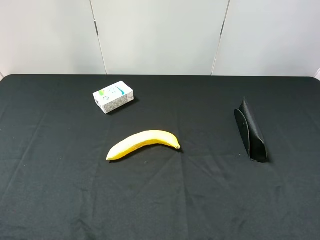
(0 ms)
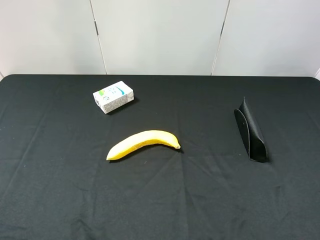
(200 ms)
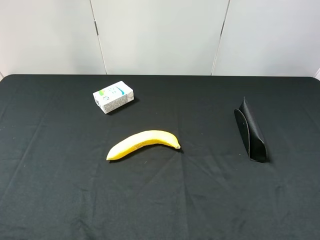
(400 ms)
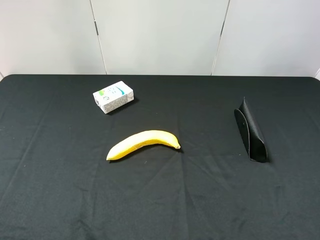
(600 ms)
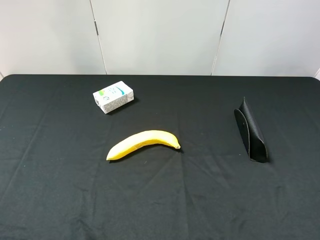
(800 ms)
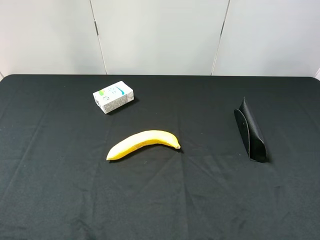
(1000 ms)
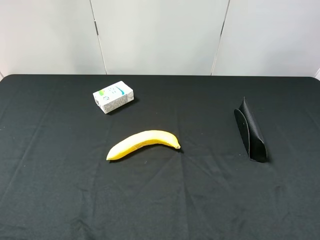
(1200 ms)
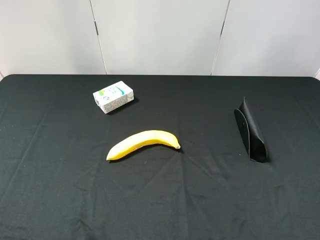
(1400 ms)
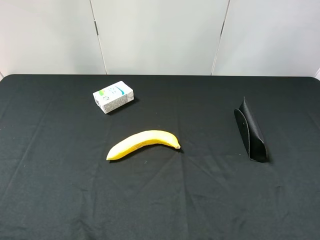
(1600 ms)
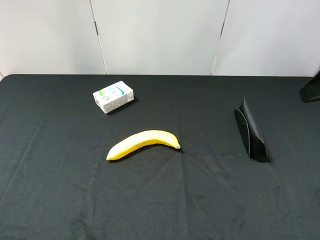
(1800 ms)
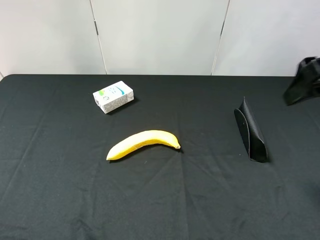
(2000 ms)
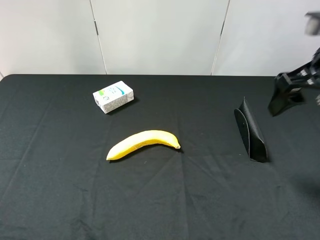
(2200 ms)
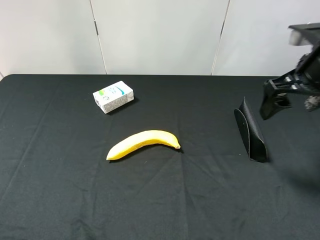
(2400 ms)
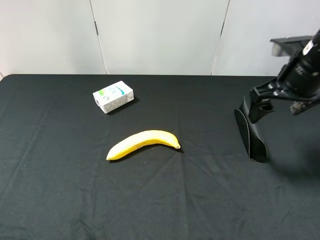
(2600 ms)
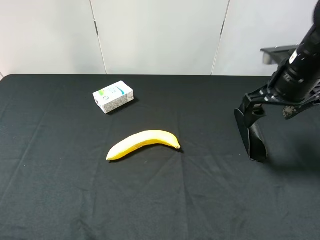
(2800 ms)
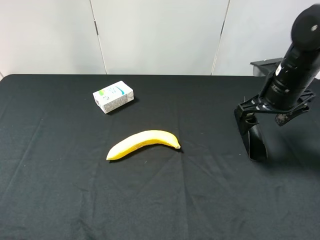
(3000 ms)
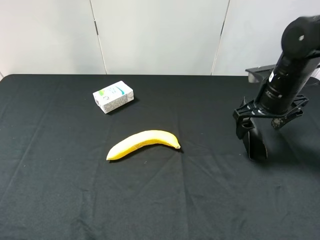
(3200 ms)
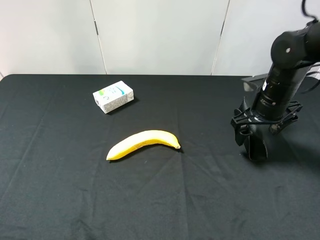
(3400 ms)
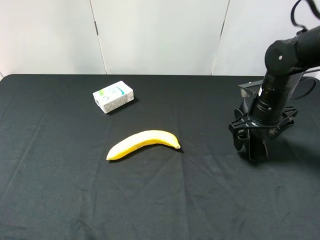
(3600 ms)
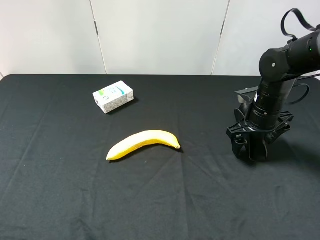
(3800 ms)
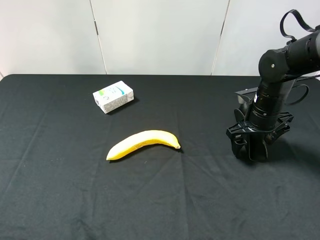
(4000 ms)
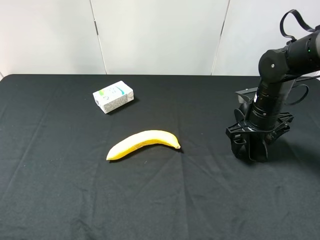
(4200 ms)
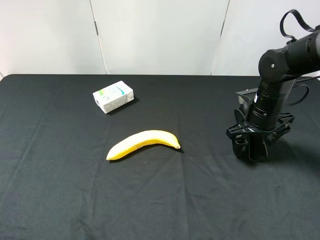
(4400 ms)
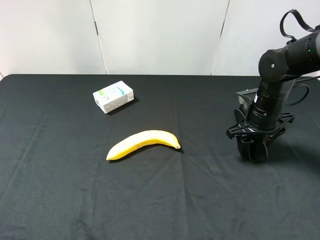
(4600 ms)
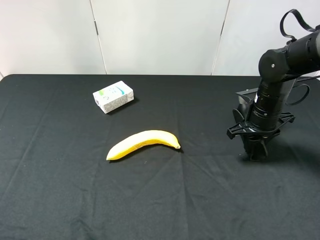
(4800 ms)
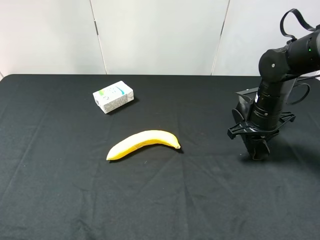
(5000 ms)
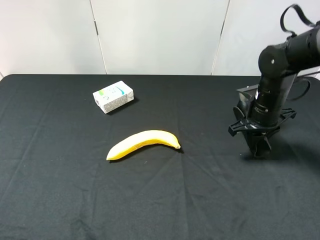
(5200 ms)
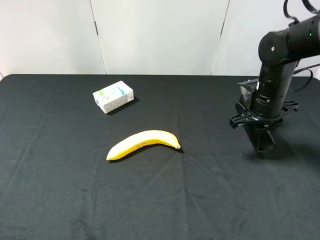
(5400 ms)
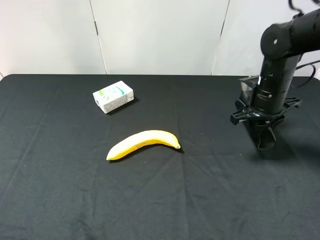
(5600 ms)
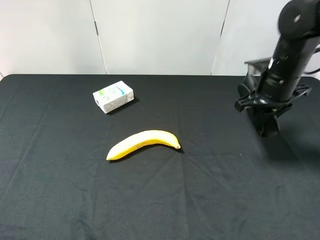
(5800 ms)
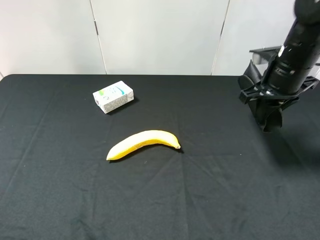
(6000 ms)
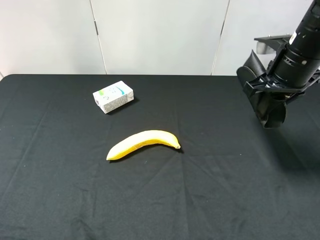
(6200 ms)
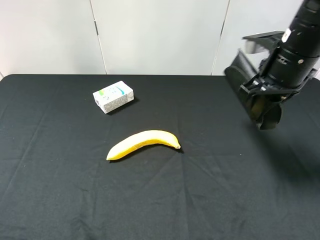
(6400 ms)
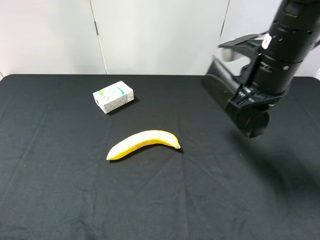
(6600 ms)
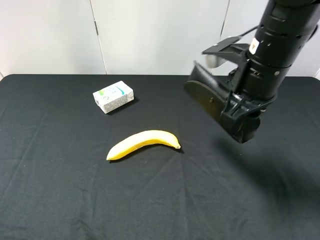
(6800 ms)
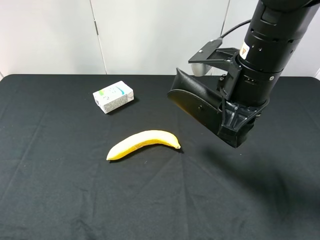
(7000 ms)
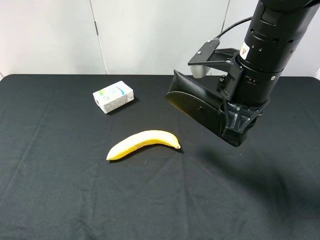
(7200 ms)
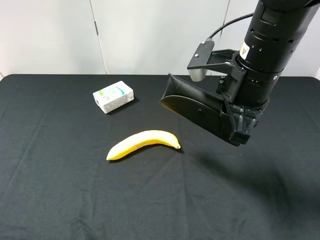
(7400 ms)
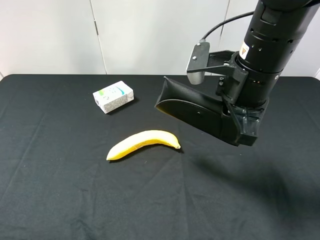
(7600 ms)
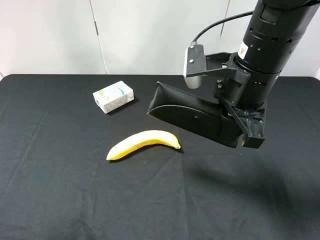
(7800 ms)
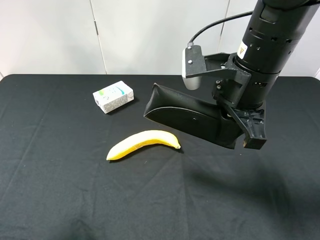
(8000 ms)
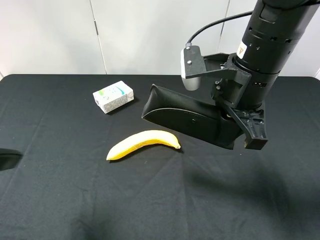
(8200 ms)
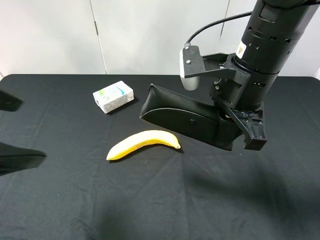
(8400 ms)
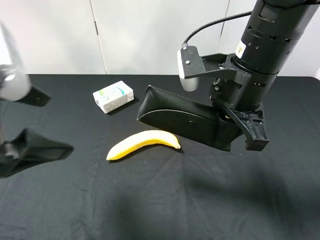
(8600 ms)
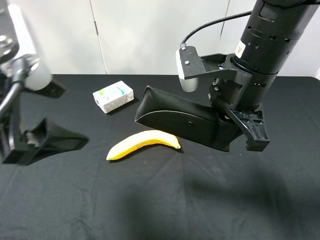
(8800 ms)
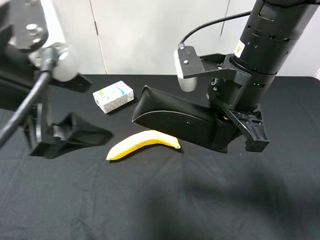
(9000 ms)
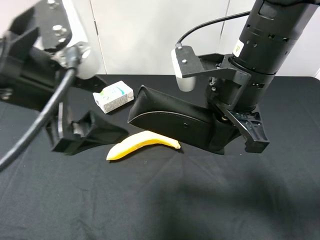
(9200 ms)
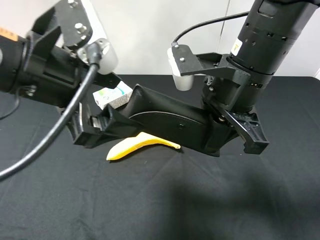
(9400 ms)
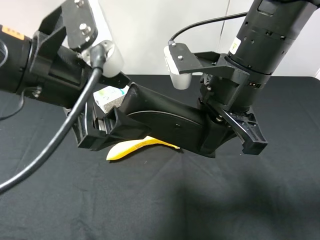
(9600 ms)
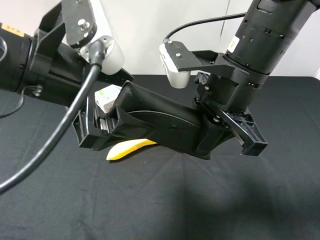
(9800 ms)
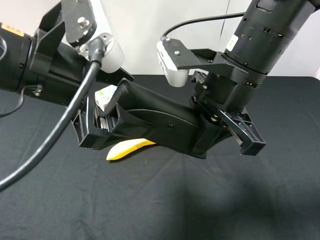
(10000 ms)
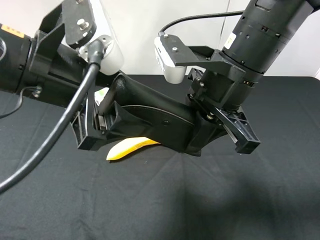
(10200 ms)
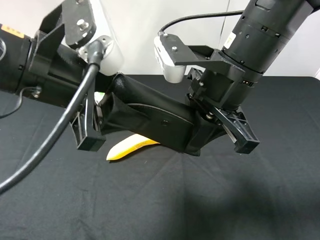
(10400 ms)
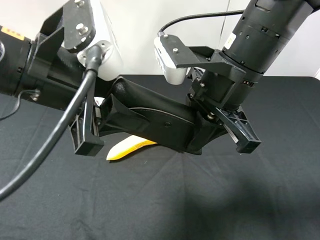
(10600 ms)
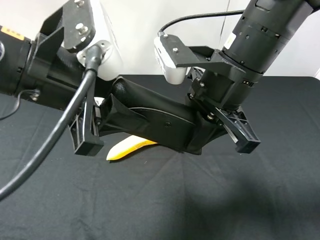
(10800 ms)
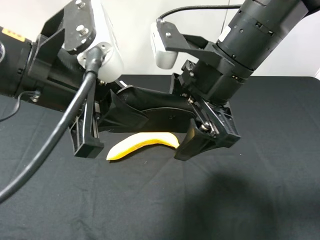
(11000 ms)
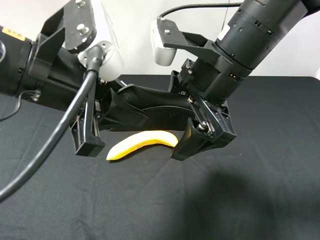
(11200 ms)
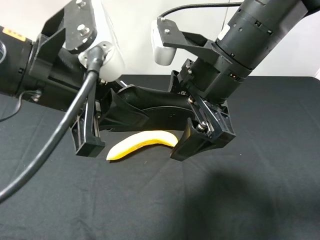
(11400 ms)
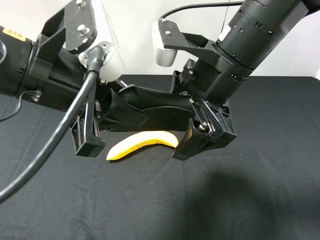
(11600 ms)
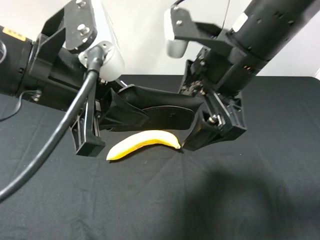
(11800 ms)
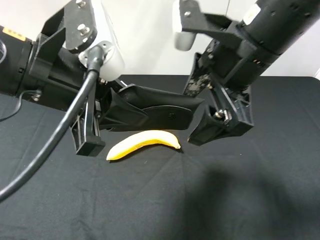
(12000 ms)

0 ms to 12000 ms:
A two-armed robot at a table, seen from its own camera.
Task of the whole recording: use the right gripper to pick up the item and transfer it from the right gripper to the left gripper.
Step, 0 ms to 4800 ms: Use the right gripper to grab the eyeglass case on the right side of the table.
1600 ms to 3000 ms: The right gripper is displaced forward and downward by approximately 25 cm.
3000 ms to 4400 ms: The right gripper travels downward by roughly 10 cm.
4400 ms to 6000 ms: The right gripper heads upward, covering some 10 cm, and closes.
6000 ms to 7600 ms: The right gripper moves to the left and backward, roughly 15 cm. Meanwhile the left gripper ends up approximately 5 cm from where it was.
7600 ms to 9000 ms: The left gripper is displaced to the right and forward by some 20 cm.
9000 ms to 10400 ms: The left gripper closes up.
10400 ms to 12000 ms: The right gripper opens its fingers.

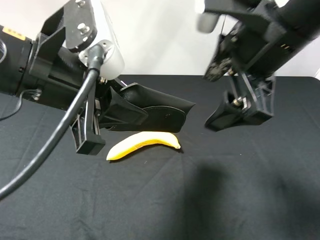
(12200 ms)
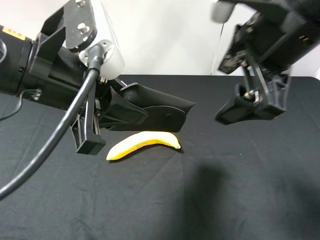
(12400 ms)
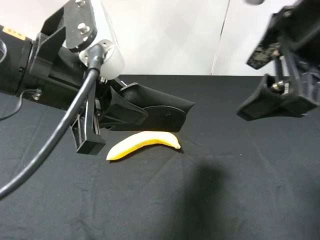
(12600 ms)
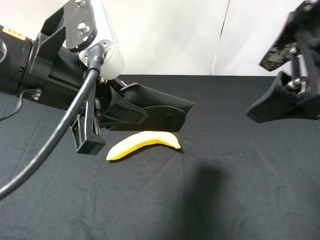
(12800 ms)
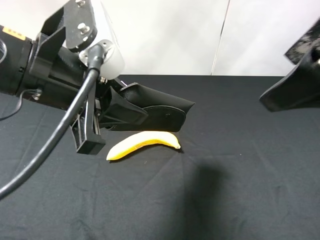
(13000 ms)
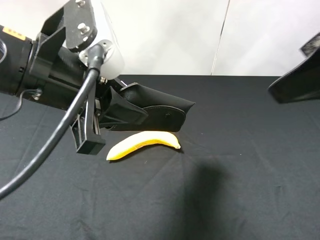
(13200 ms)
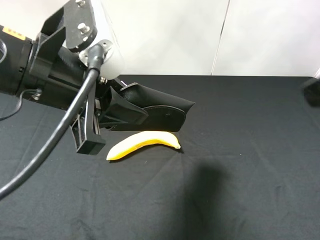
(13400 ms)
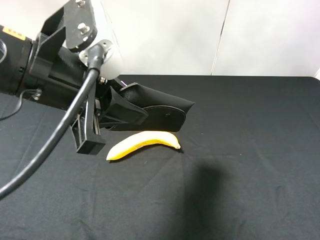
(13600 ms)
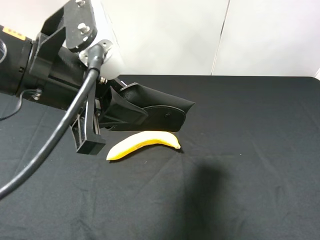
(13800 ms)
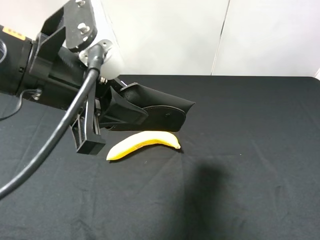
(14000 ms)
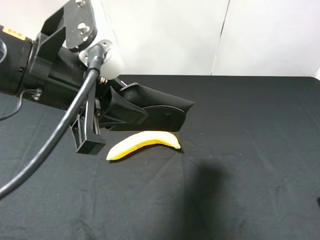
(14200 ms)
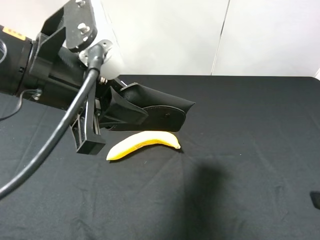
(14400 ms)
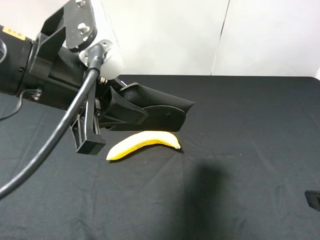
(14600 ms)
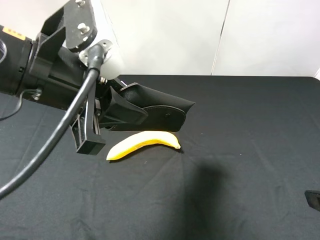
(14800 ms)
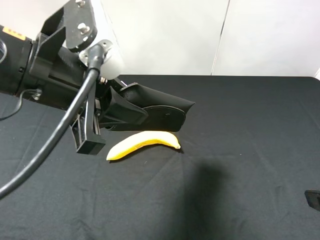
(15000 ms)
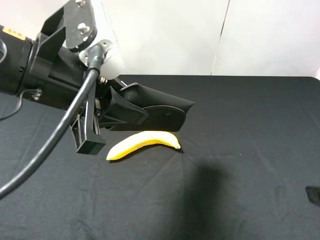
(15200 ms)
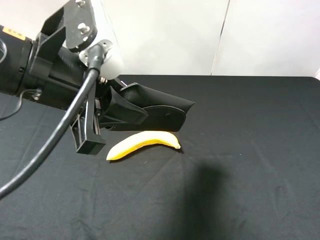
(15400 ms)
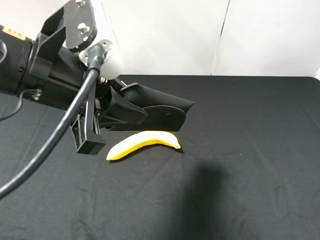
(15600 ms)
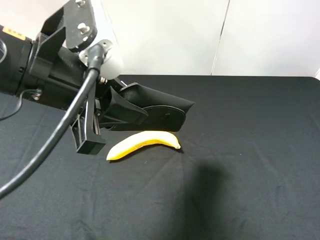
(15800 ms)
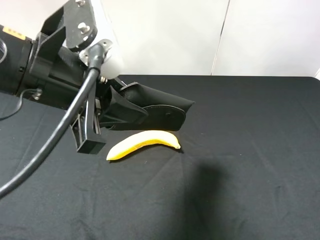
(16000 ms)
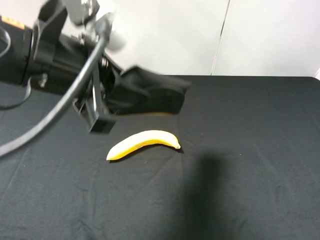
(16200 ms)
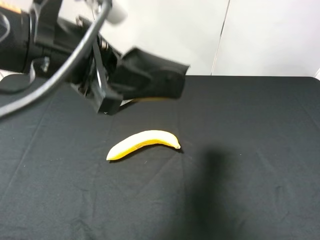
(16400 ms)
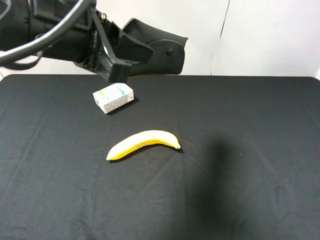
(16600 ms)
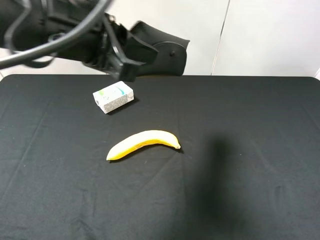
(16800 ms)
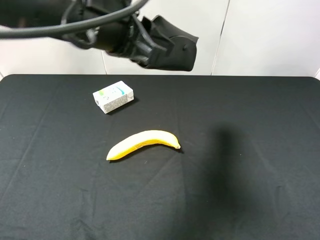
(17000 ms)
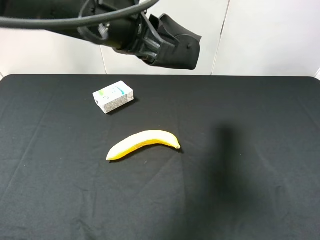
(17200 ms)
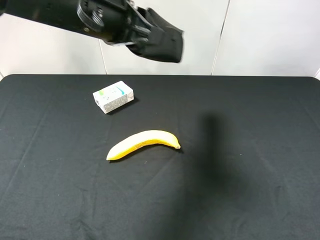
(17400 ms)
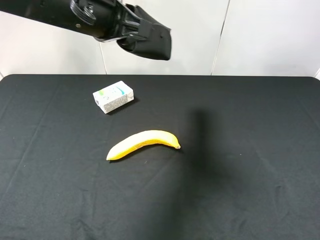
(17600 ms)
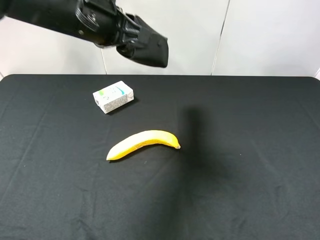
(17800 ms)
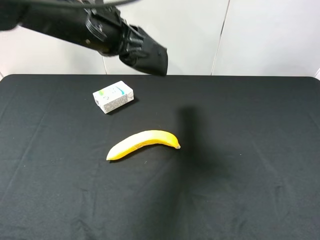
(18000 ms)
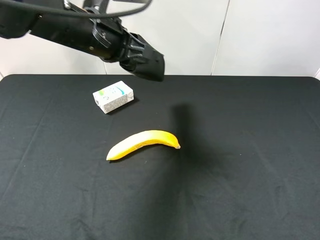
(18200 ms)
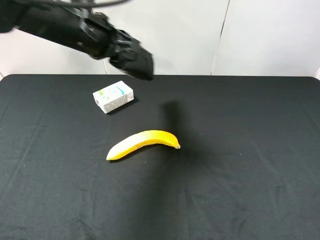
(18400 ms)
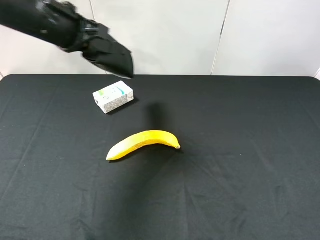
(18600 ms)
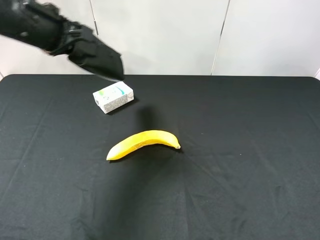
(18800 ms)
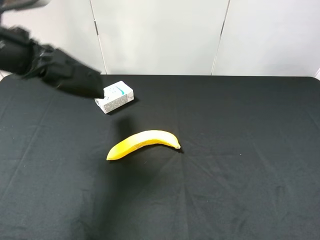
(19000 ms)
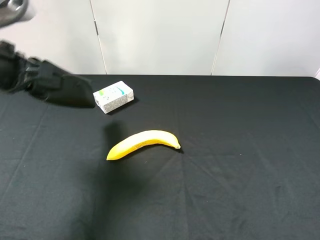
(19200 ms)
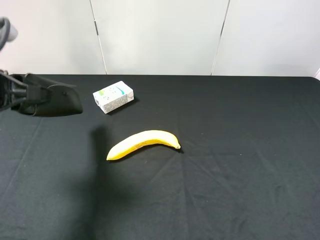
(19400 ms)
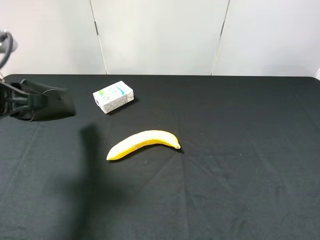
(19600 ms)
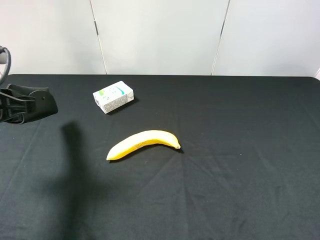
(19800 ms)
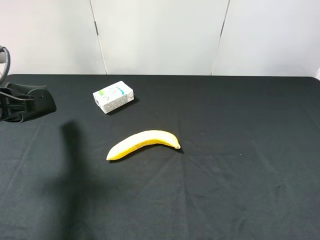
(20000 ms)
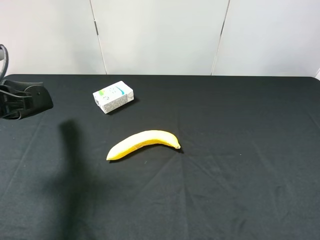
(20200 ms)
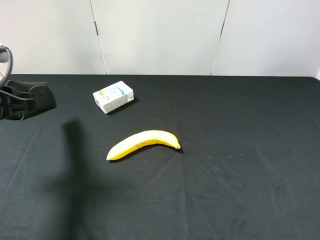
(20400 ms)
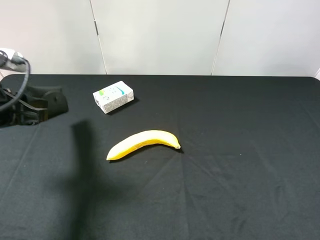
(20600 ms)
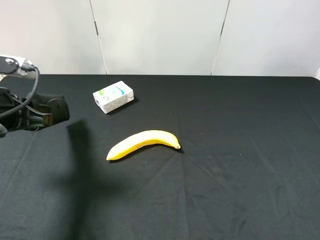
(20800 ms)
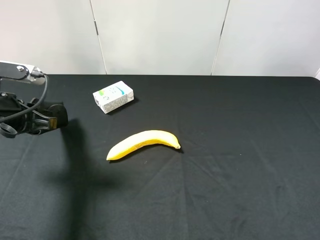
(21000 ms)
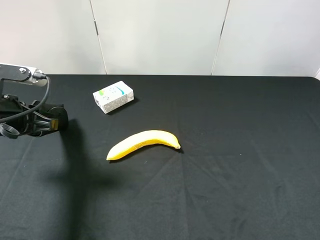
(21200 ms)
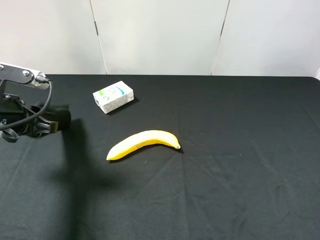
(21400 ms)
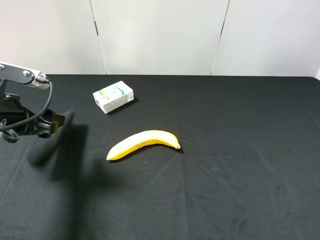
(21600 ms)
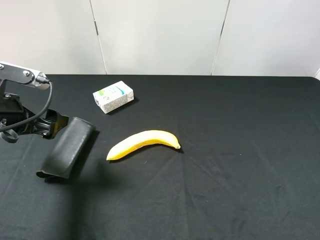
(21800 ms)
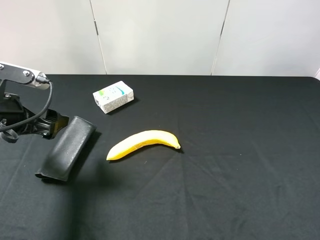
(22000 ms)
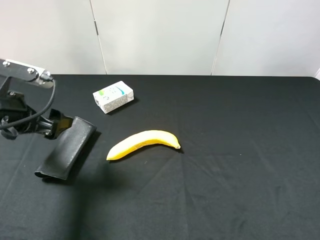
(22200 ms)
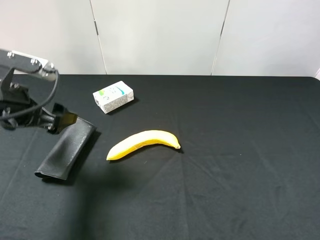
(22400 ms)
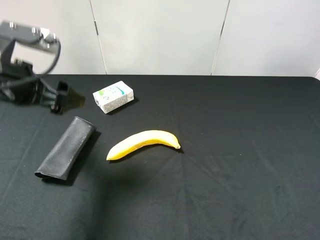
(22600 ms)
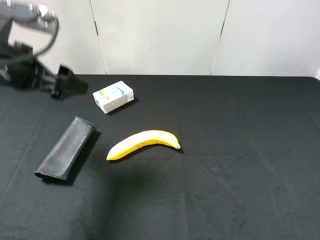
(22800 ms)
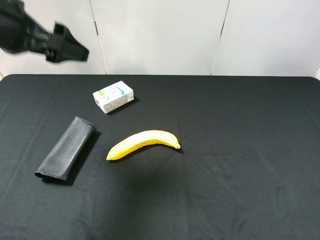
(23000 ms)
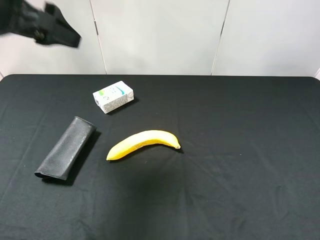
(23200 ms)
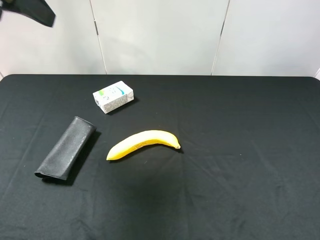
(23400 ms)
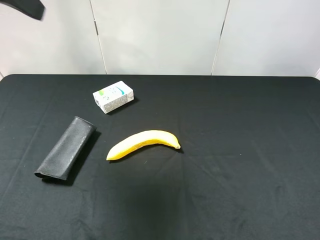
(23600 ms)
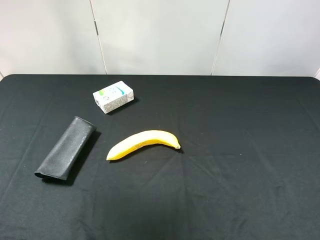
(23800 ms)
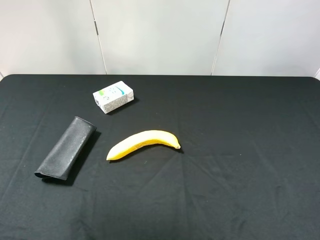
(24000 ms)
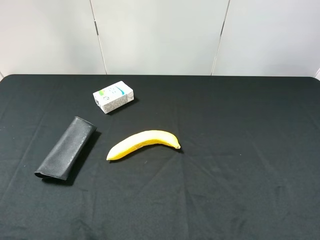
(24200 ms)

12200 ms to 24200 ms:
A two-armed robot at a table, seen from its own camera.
Task of the whole recording: use the right gripper to pick up the item and transfer it from the right gripper to the left gripper.
Step, 12200 ms to 21800 ms: The left gripper places eyeglass case on the left side of the table.
12200 ms to 13800 ms: The right gripper travels backward and to the right by some 20 cm.
16600 ms to 18200 ms: The left gripper goes roughly 10 cm forward and downward.
18200 ms to 19800 ms: The left gripper is displaced to the left and backward by about 20 cm.
19800 ms to 21200 ms: The grippers stay close to where they were, moving slightly.
21200 ms to 22600 ms: The left gripper moves upward, roughly 5 cm, and opens.
22600 ms to 24200 ms: The left gripper heads upward and backward, covering approximately 25 cm.
